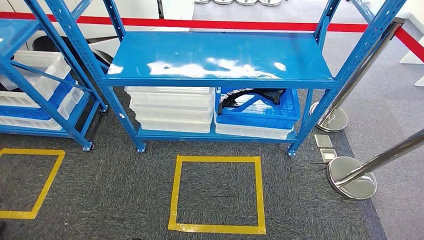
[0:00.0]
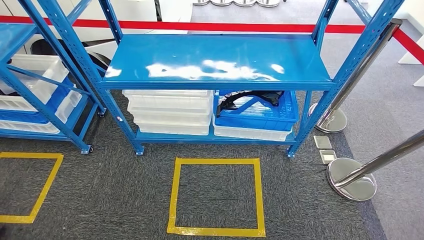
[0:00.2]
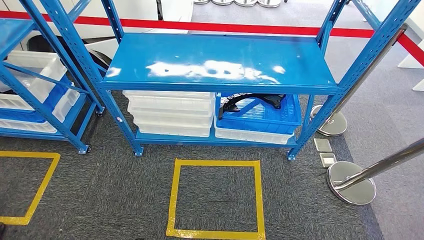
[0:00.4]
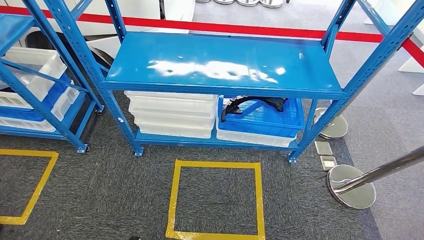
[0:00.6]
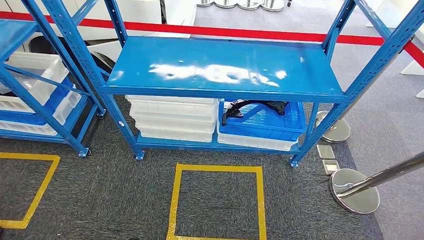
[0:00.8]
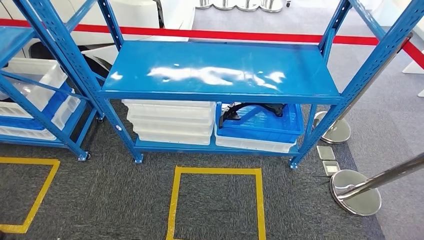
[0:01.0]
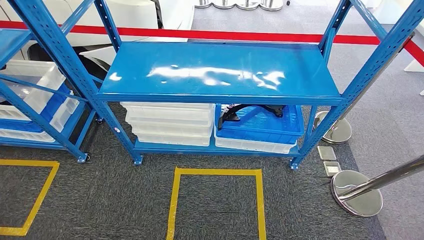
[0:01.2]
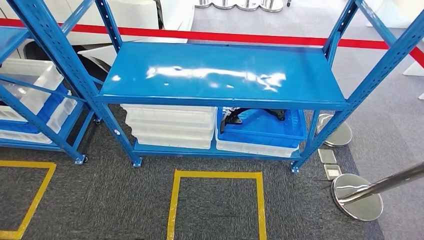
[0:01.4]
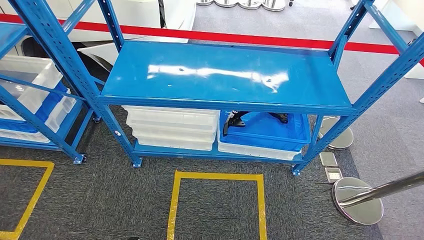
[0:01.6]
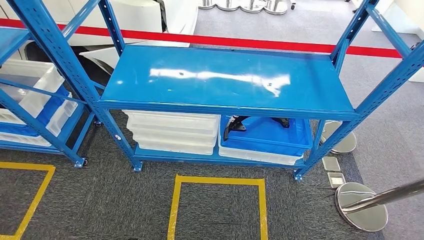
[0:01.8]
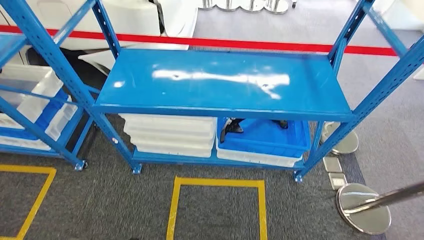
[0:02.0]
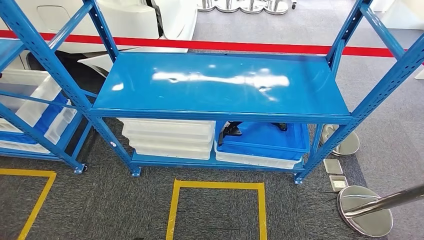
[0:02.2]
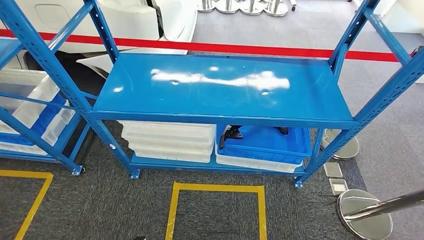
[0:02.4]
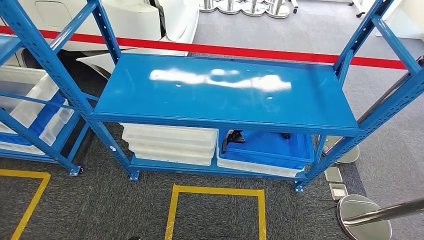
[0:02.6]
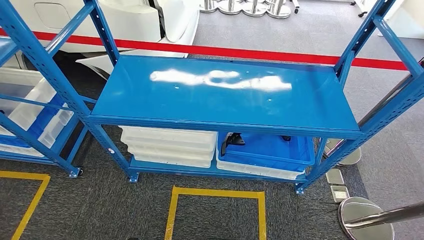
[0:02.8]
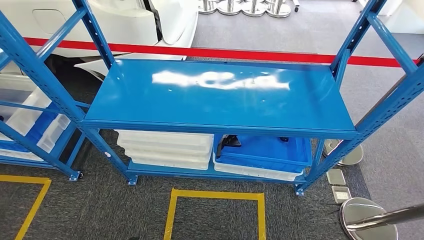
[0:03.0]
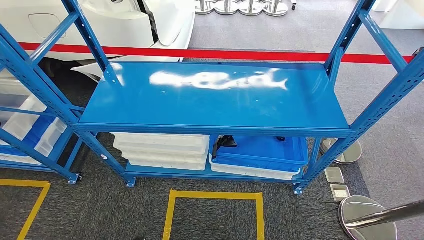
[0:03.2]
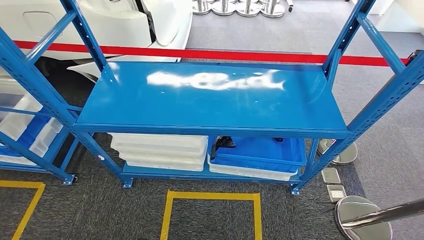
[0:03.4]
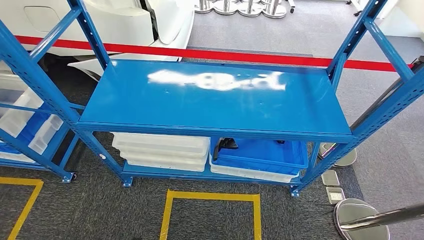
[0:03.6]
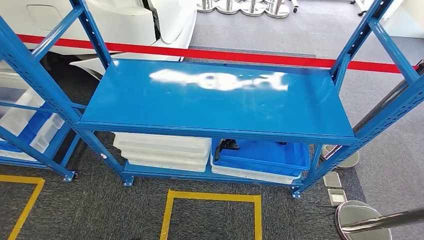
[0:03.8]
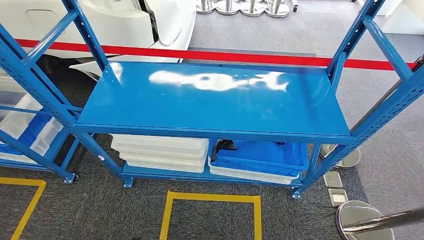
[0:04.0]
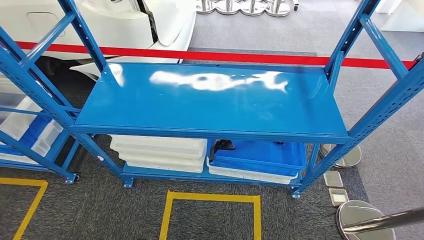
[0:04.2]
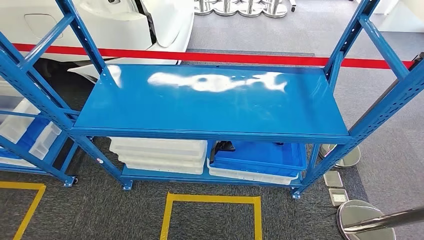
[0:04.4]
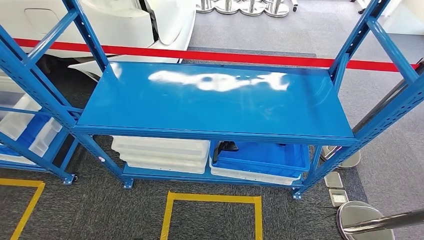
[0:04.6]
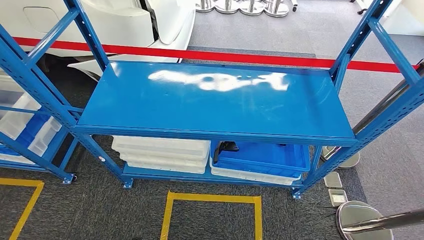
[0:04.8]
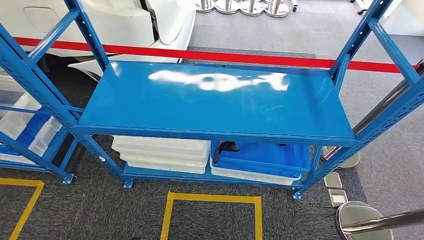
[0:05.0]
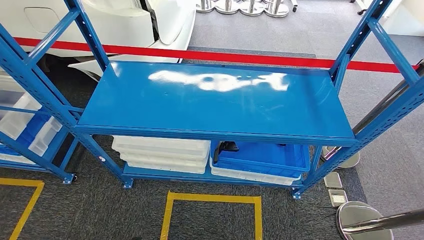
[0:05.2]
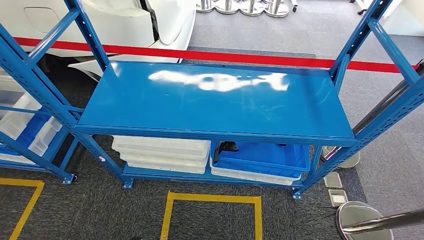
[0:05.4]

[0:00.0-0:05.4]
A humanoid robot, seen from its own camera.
Step, 0:00.0 to 0:05.4: Return to the initial position at the shelf.
0:04.0 to 0:05.4: Both hands stay about where they are.

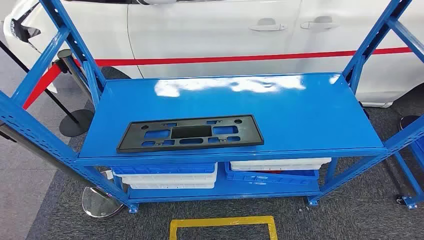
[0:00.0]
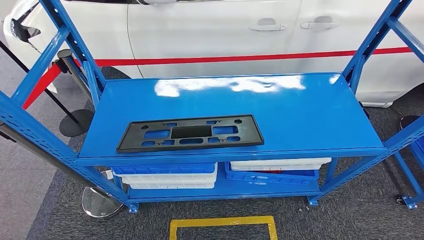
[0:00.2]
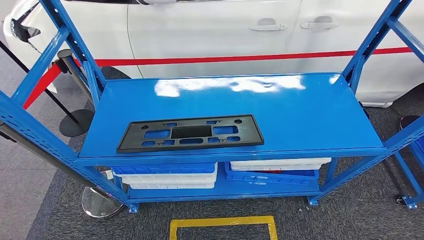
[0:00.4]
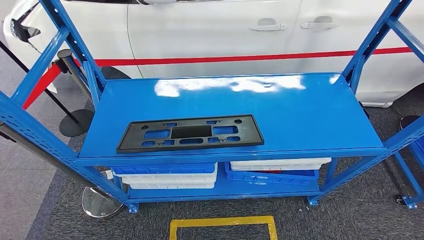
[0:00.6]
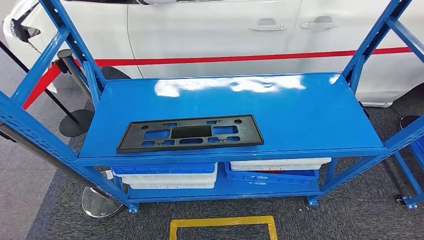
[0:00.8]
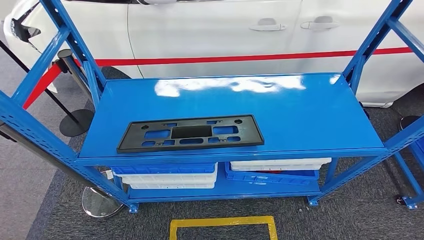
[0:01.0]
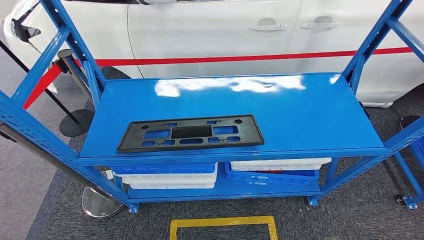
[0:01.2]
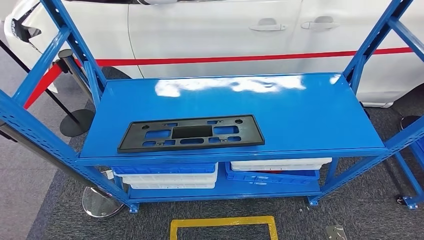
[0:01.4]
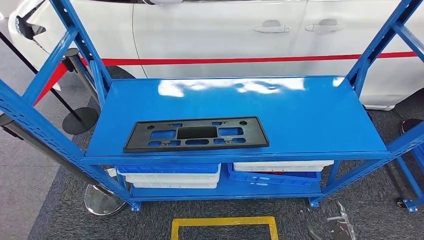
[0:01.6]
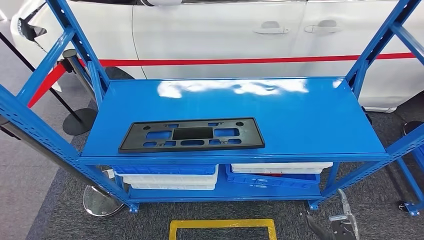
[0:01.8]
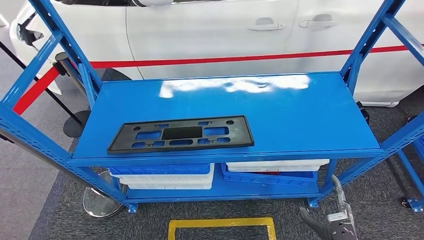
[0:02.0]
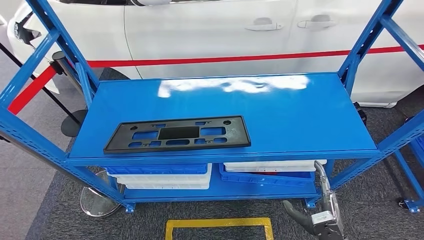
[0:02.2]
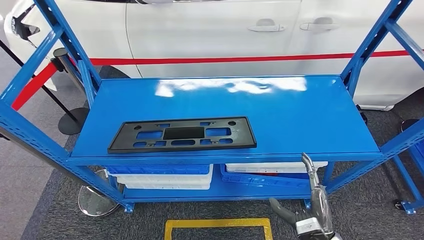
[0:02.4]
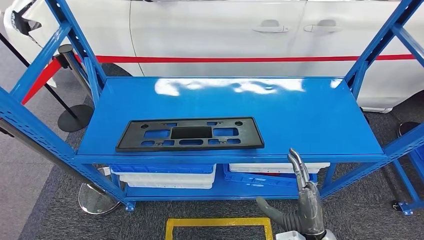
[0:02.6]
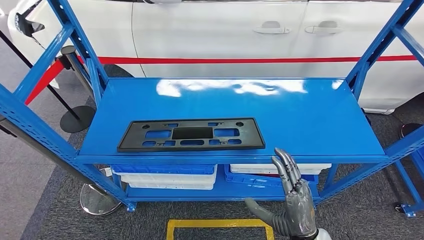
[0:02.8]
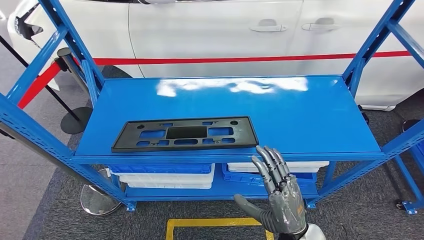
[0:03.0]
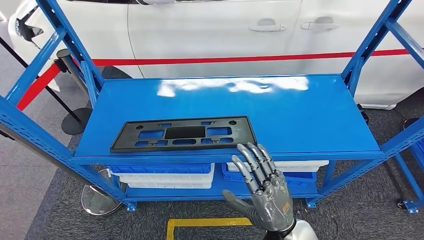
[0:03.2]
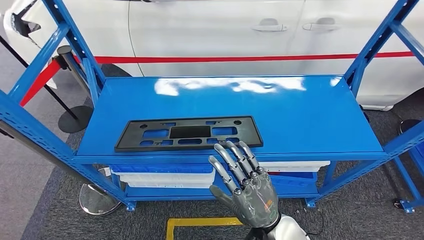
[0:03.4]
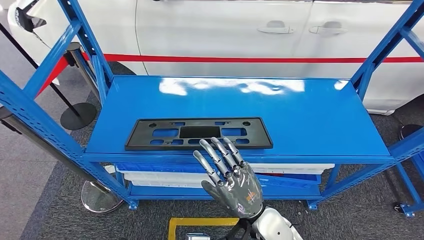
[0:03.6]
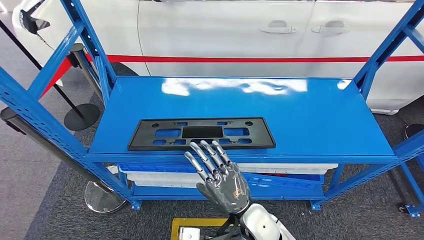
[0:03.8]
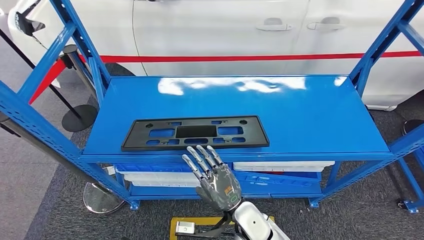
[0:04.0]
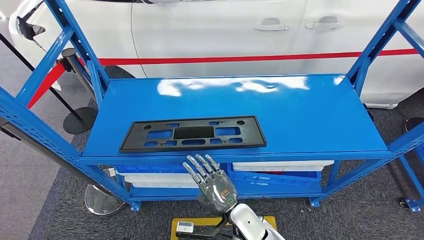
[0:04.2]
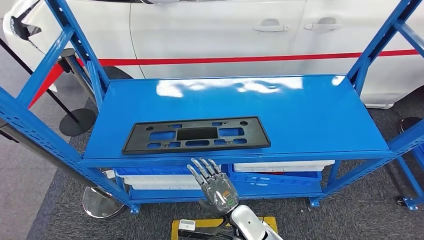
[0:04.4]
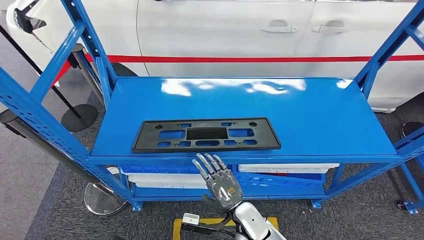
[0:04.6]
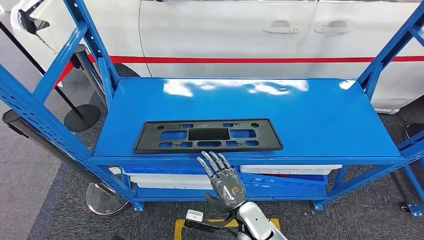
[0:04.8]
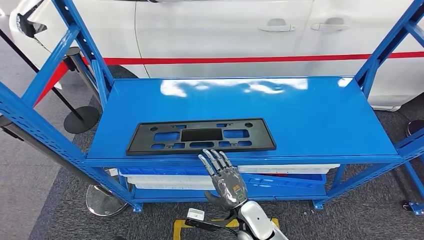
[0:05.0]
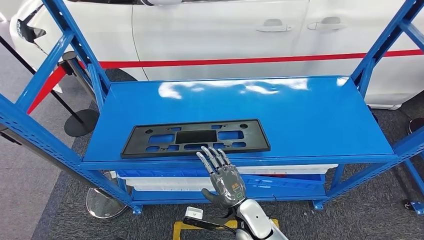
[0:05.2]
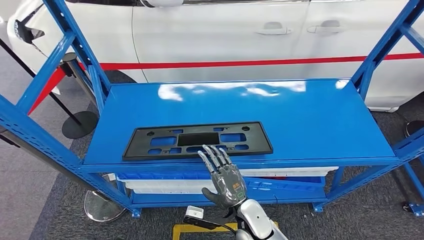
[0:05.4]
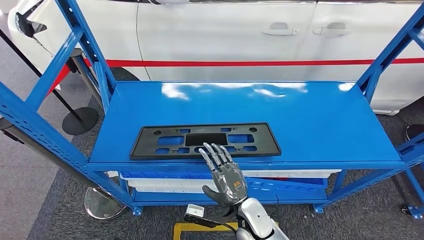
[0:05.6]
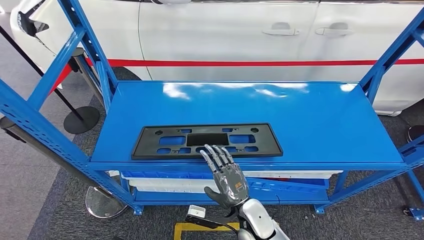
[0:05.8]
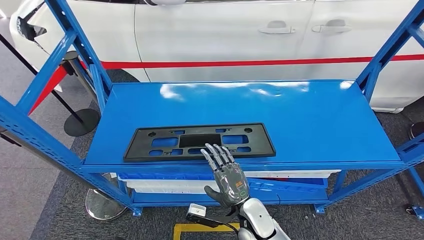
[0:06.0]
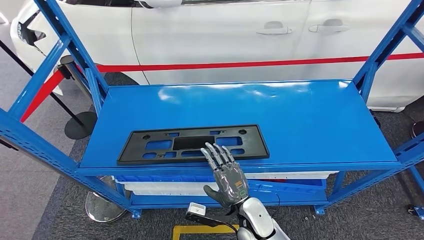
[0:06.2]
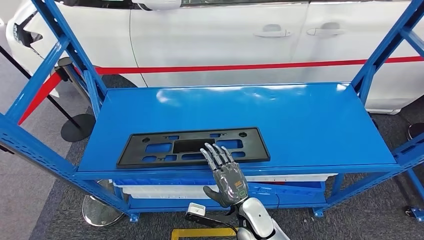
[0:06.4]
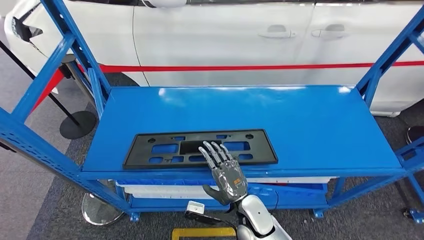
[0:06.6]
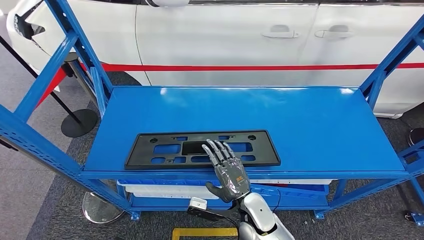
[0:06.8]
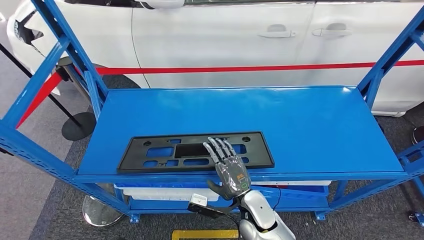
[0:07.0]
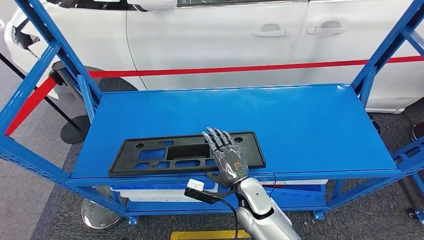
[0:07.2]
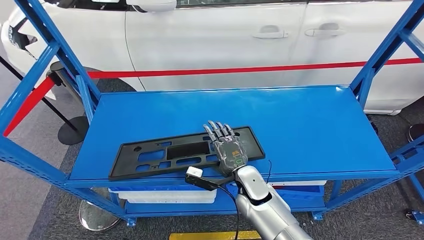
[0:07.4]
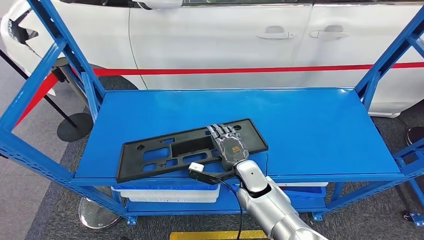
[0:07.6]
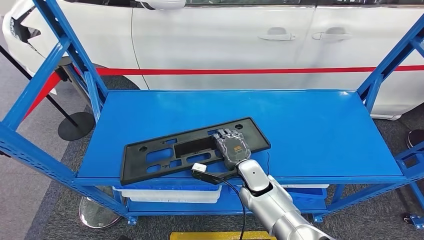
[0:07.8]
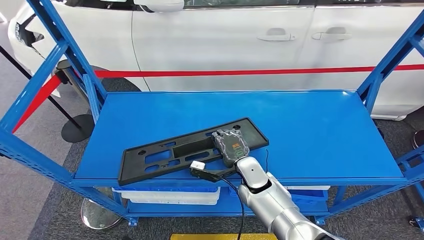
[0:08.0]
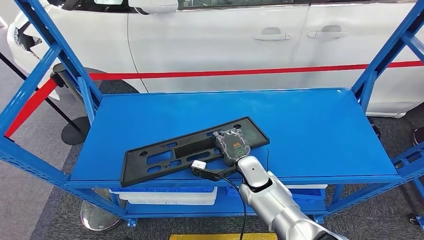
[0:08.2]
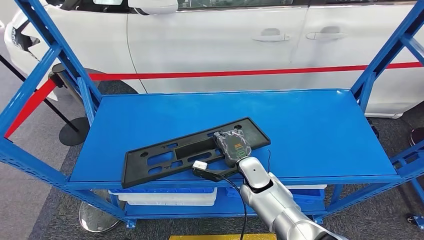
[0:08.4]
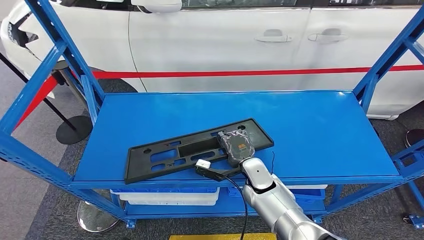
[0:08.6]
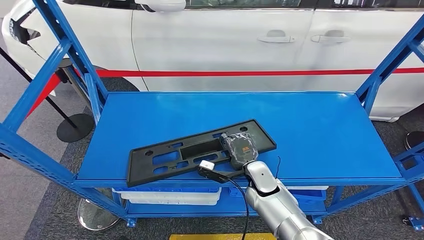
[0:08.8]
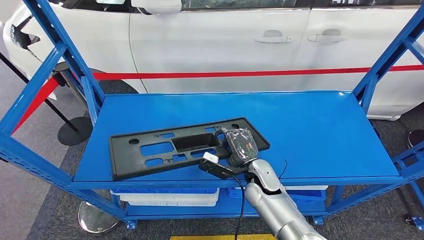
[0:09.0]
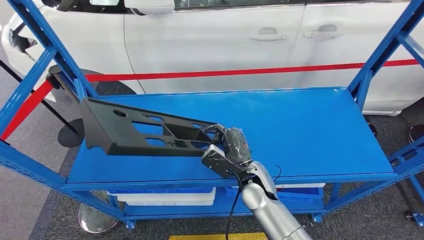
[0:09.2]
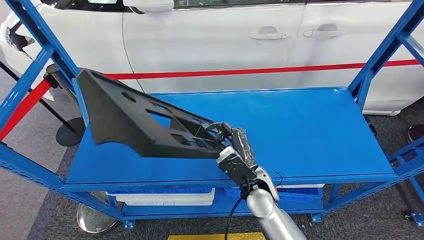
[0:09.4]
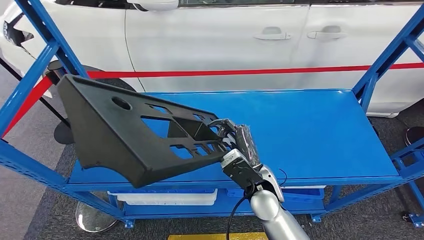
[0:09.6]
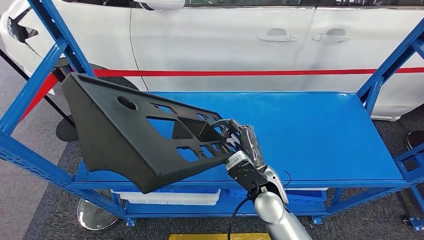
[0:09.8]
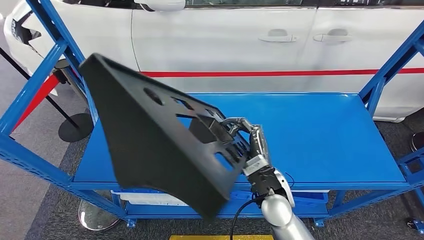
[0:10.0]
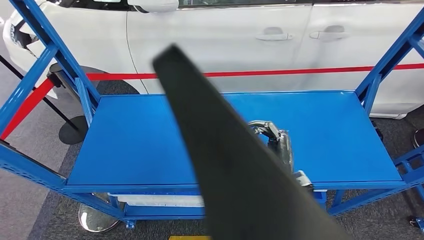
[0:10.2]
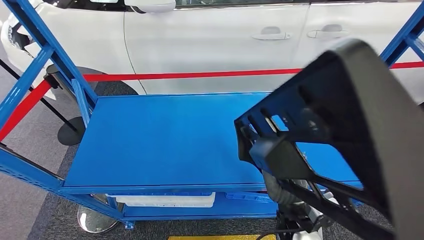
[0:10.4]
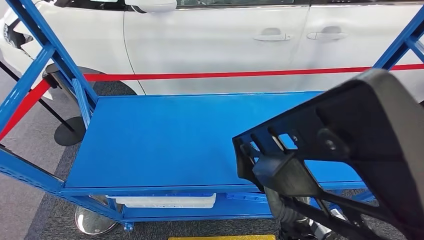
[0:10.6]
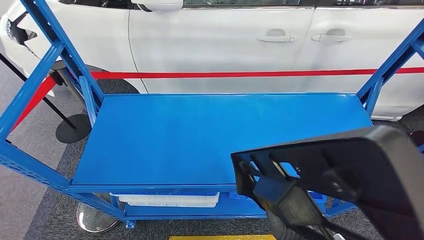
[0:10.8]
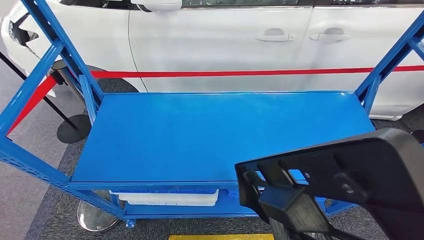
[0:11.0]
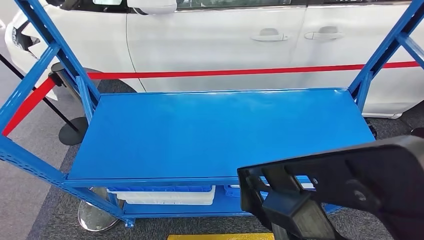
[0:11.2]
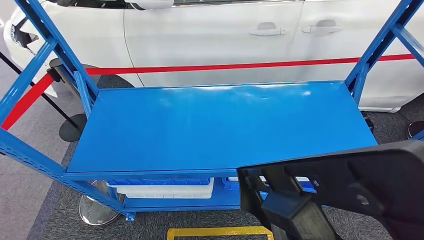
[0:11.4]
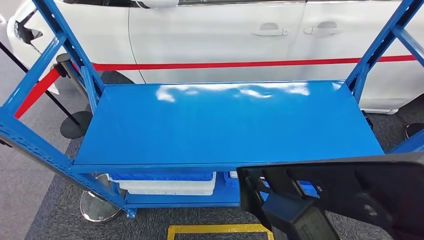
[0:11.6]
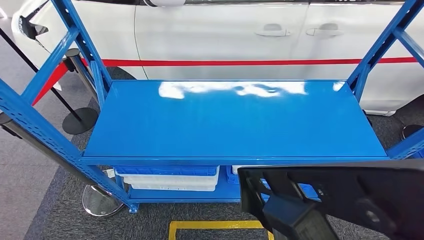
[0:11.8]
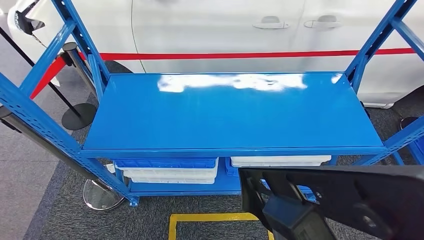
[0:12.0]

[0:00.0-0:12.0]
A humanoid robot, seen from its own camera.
Step, 0:00.0 to 0:11.2: Pick up the large material from the shelf.
0:01.6 to 0:03.0: The right hand moves upward and to the left, about 25 cm.
